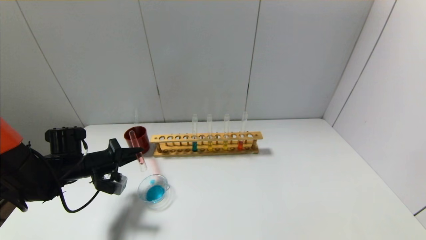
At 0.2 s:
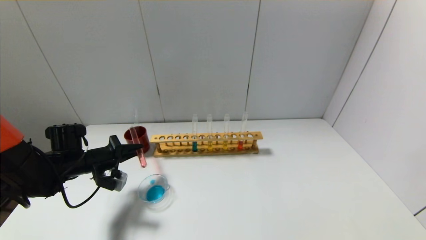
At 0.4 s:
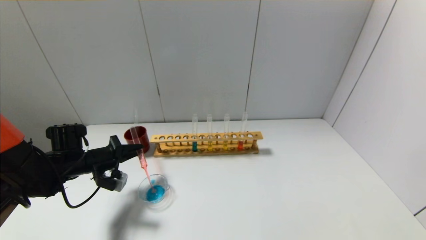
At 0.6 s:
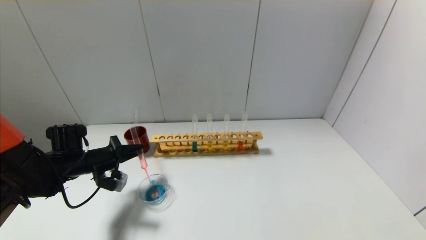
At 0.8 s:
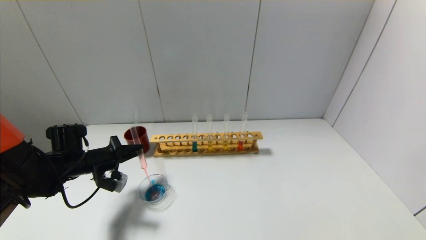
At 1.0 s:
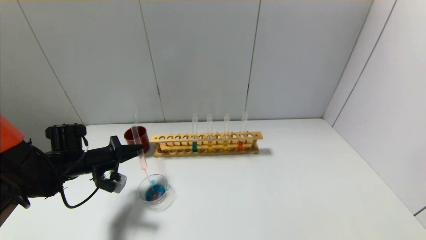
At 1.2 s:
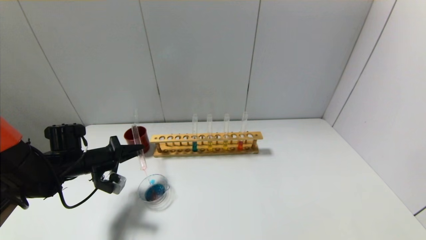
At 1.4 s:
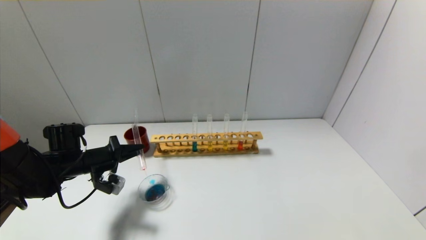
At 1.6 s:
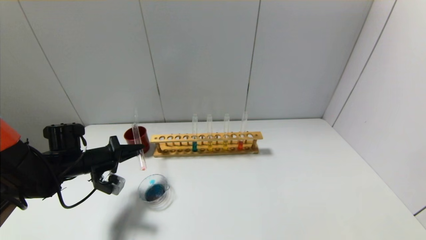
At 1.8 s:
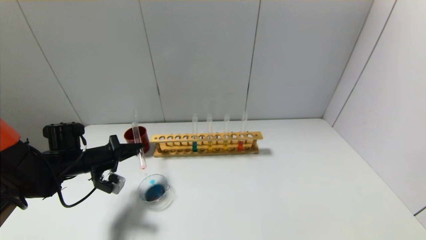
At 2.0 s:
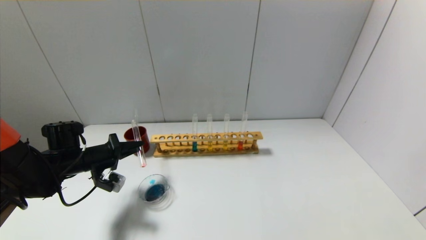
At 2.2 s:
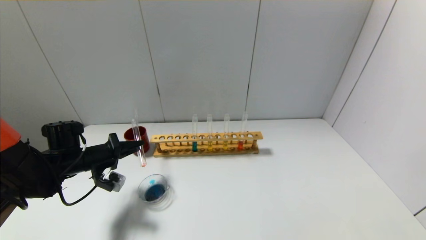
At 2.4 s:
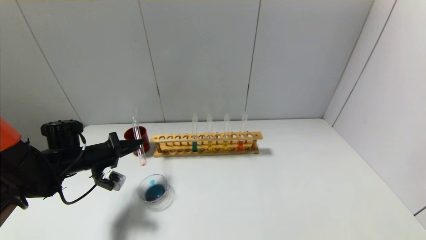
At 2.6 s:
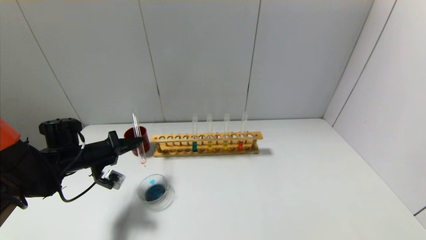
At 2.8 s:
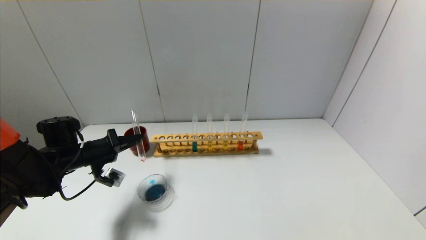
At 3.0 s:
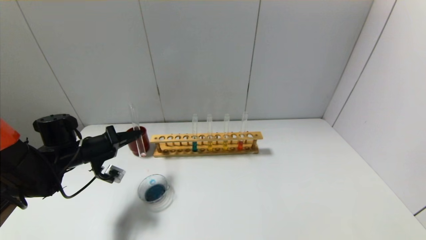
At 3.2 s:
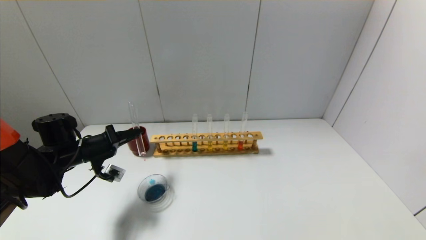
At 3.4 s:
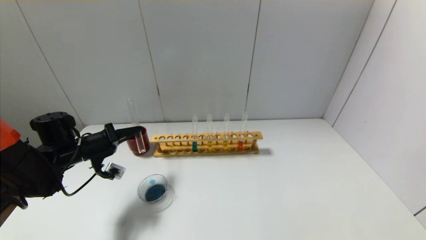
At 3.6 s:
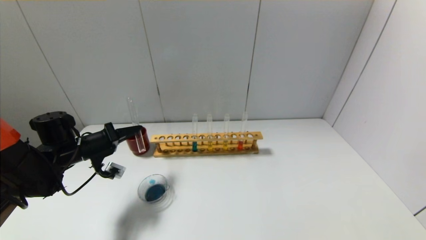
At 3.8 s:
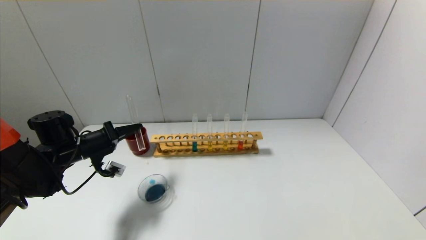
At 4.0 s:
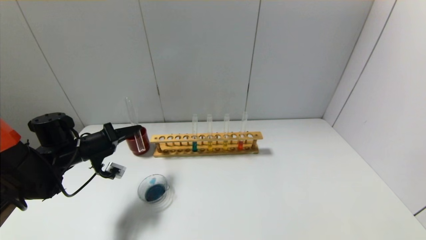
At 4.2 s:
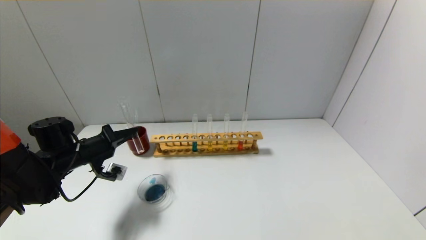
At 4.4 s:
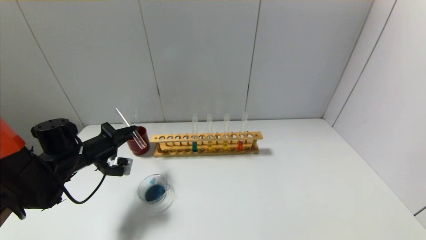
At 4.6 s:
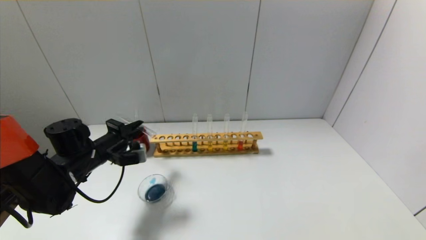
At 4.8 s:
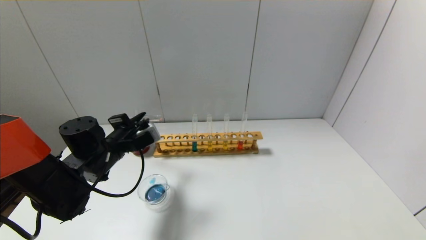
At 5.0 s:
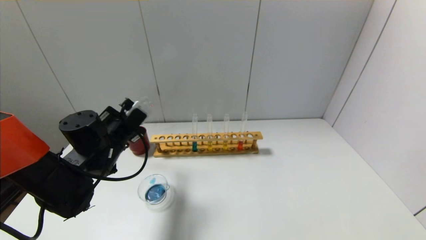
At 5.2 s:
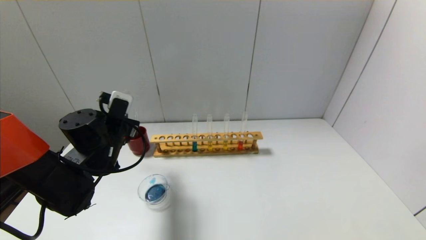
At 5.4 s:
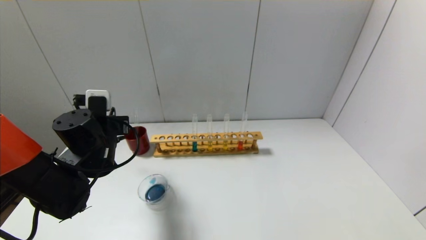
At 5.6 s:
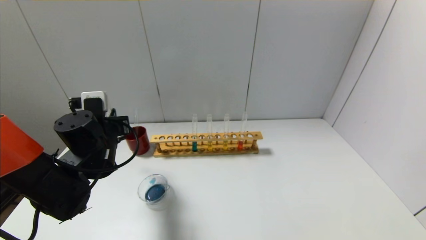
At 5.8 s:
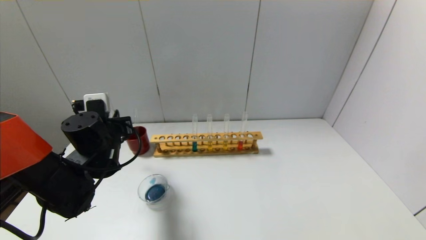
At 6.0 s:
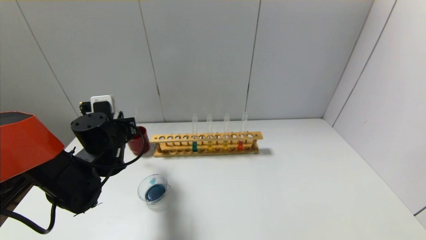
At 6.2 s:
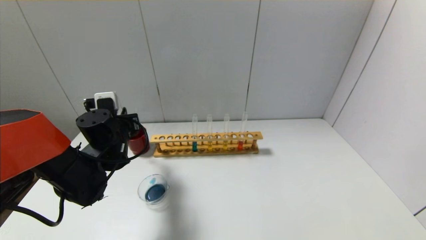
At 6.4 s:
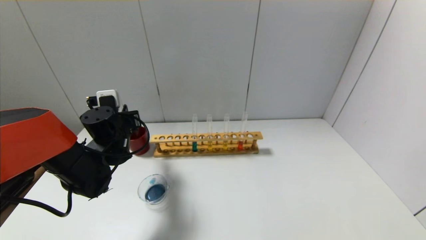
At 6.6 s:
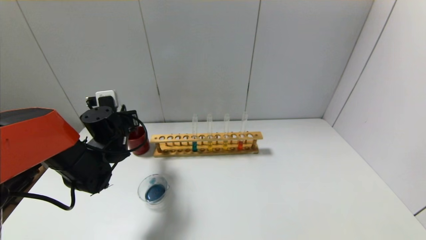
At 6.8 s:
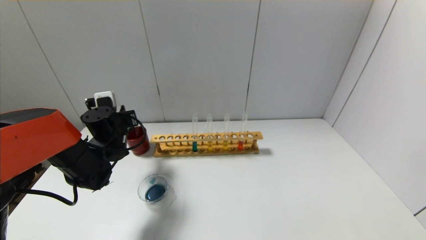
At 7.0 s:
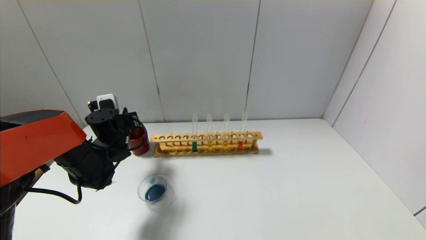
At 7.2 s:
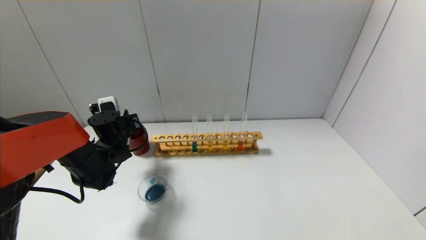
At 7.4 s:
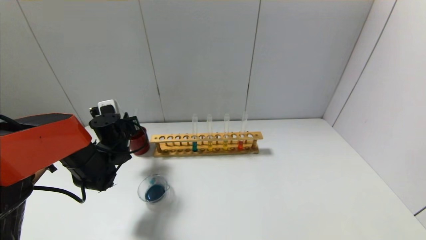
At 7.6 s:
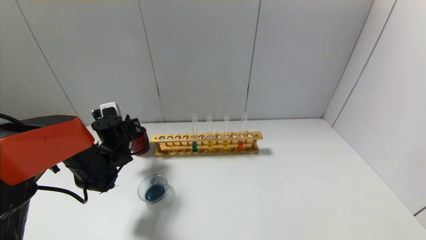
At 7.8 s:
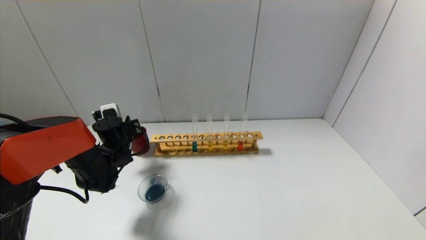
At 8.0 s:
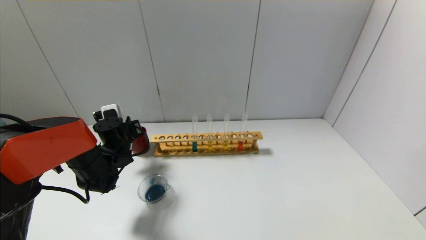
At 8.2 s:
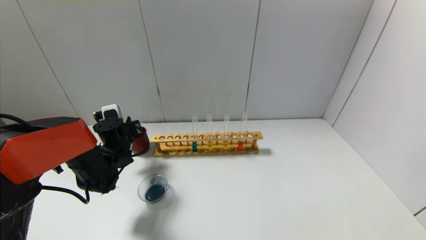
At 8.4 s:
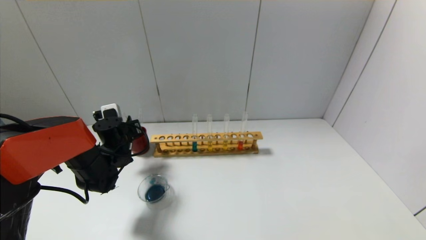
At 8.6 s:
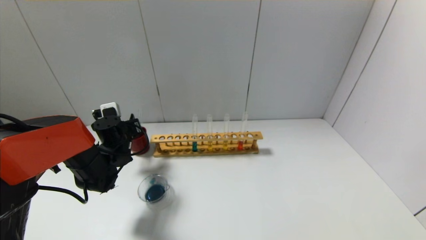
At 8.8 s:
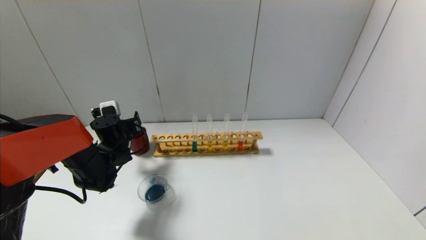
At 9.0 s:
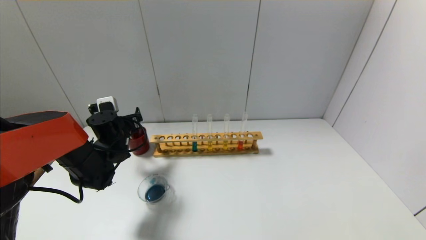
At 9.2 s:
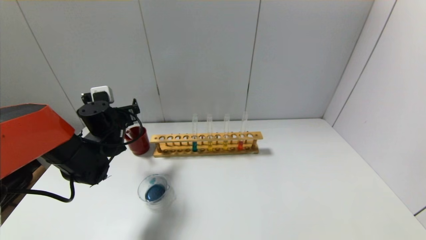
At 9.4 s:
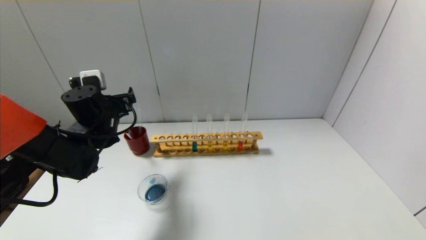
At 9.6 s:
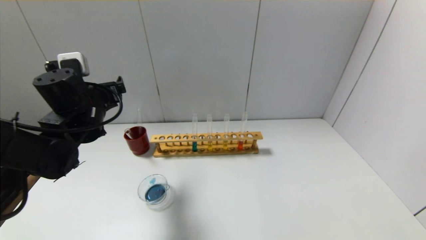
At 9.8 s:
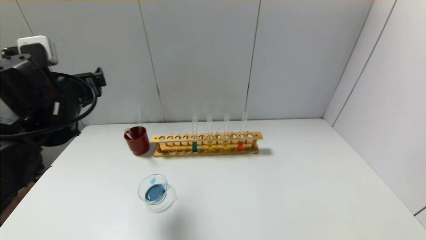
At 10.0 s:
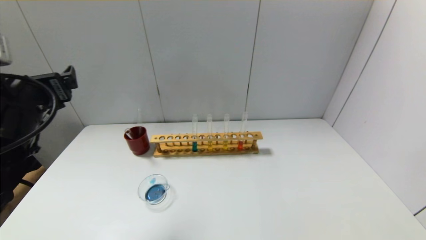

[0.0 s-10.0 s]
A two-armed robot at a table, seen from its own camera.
Step, 0.0 to 4.4 s: Pour the red reagent into the graduated cylinder with the left gripper.
Step, 4.6 to 8.6 s: Place the test tube into the brown cup with the left gripper.
0.0 to 1.4 s: There are only small adjustments of the grippers.
1.4 to 2.8 s: The grippers make only small movements.
2.8 to 4.2 s: There are only small adjustments of the grippers.
4.2 to 5.8 s: The left gripper is displaced to the right by approximately 10 cm.
5.8 to 7.2 s: The left gripper goes roughly 10 cm forward.
7.2 to 8.6 s: The left gripper opens its fingers.
8.6 to 10.0 s: The left gripper goes some 25 cm upward and backward, and opens its fingers.

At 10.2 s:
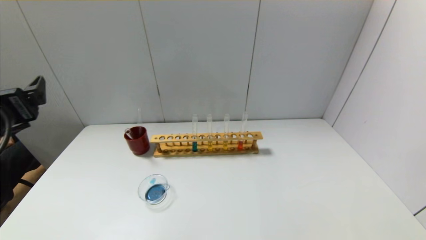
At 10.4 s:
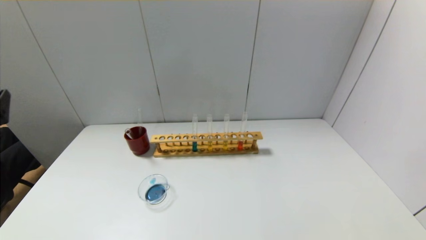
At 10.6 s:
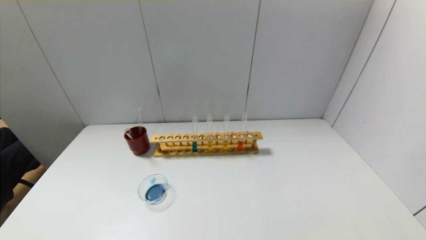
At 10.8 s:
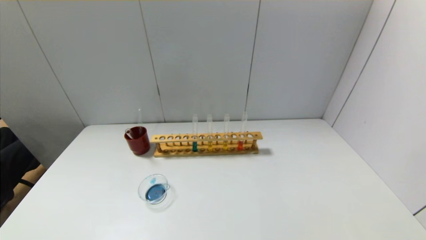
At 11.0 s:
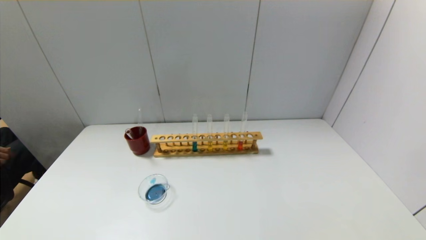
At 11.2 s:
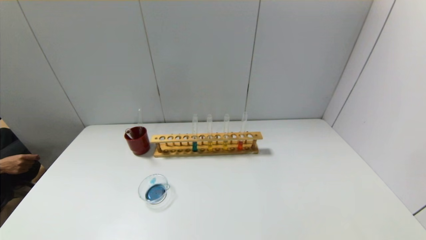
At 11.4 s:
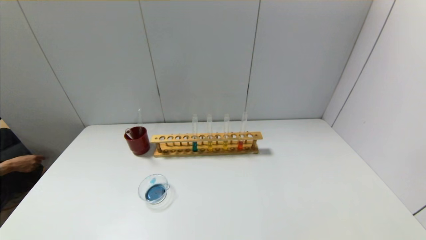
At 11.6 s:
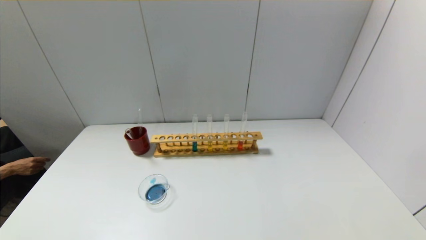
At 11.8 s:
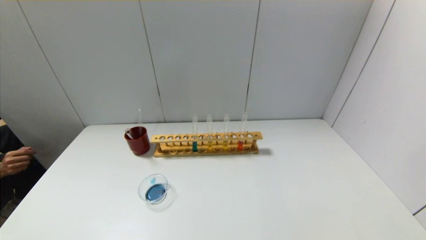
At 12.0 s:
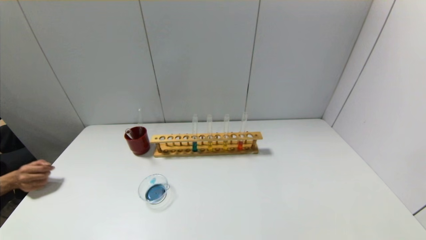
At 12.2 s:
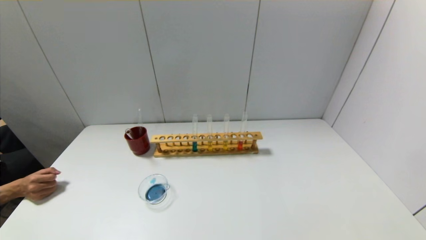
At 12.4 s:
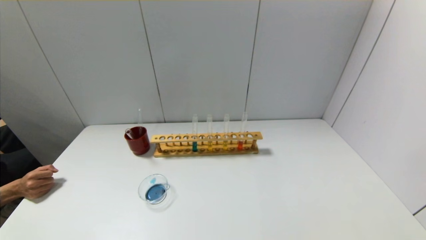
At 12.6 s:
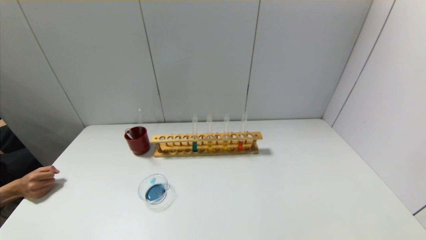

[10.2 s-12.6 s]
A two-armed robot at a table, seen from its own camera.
10.2 to 11.4 s: The left gripper shifts some 25 cm backward and downward.
11.4 to 12.6 s: The left gripper shifts approximately 5 cm downward.
